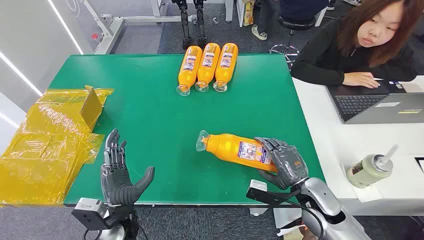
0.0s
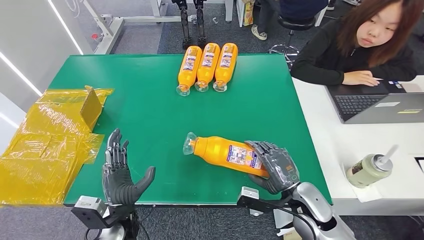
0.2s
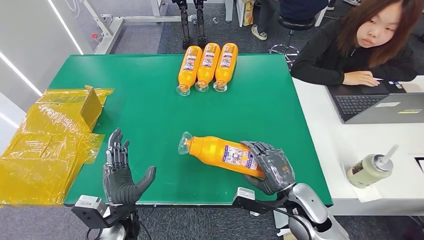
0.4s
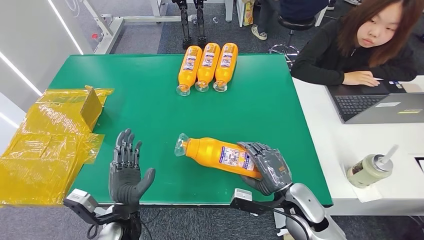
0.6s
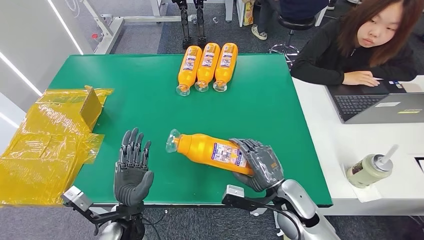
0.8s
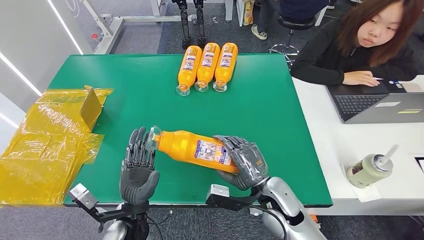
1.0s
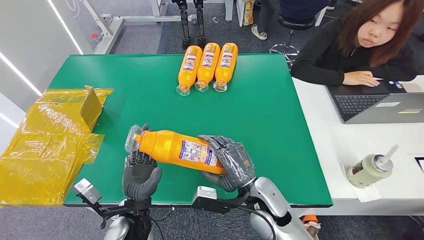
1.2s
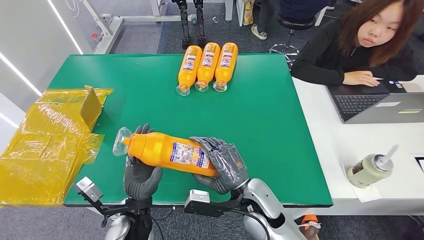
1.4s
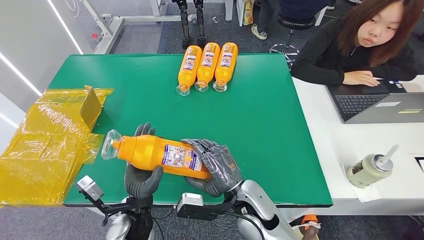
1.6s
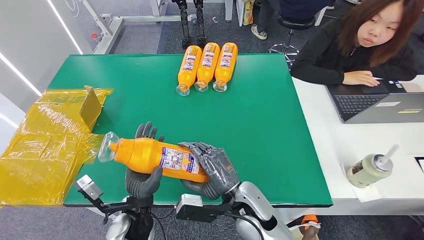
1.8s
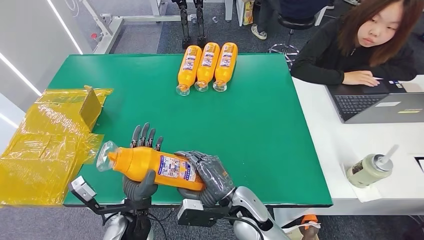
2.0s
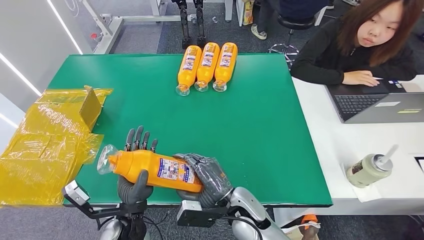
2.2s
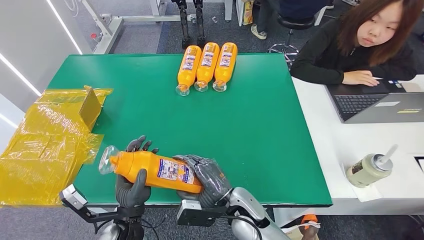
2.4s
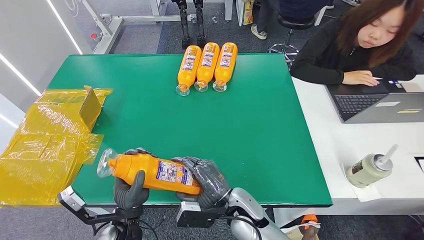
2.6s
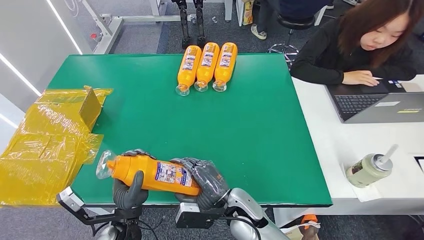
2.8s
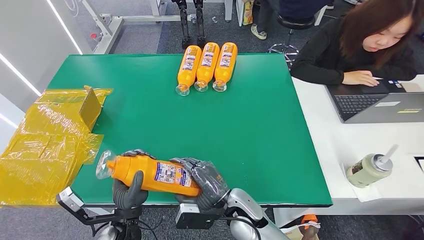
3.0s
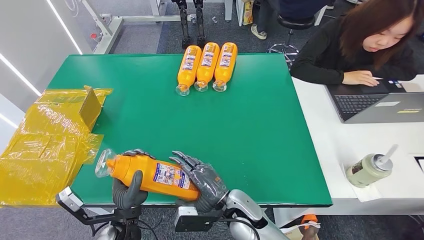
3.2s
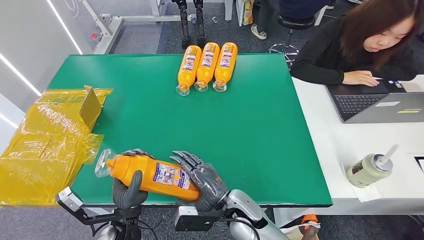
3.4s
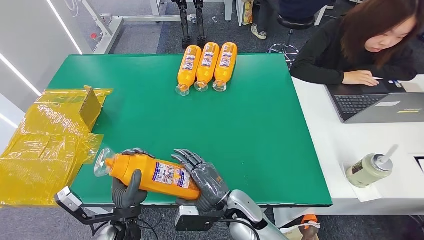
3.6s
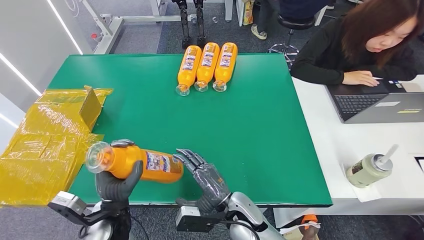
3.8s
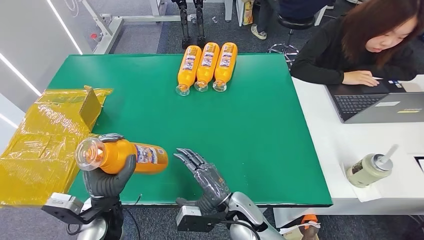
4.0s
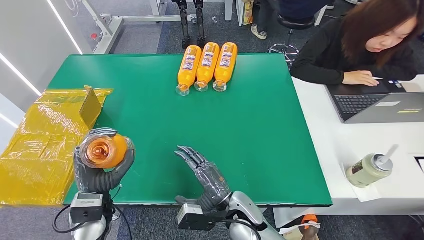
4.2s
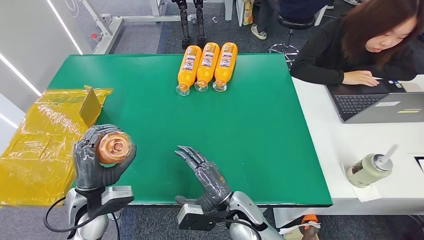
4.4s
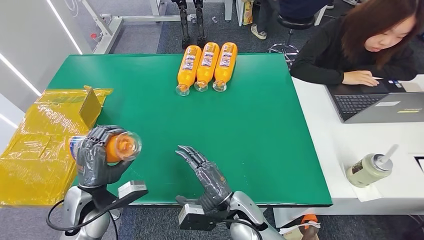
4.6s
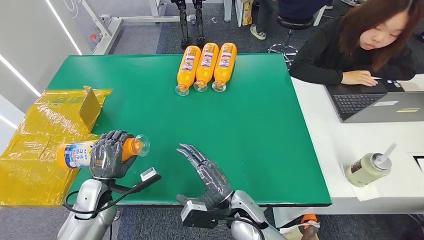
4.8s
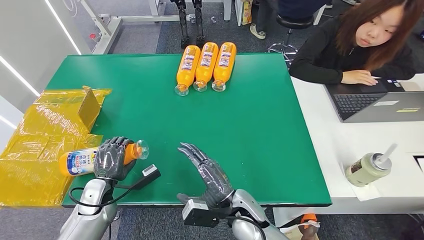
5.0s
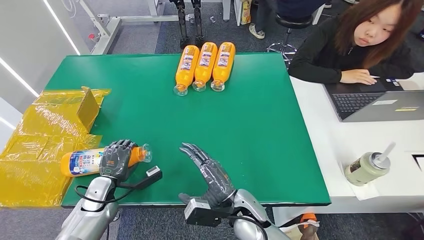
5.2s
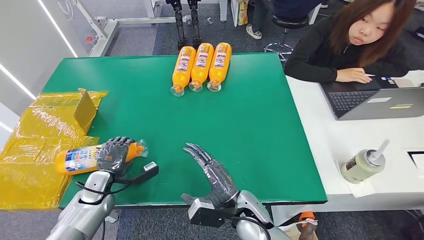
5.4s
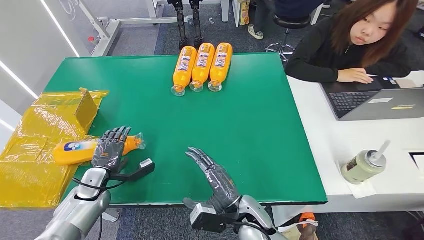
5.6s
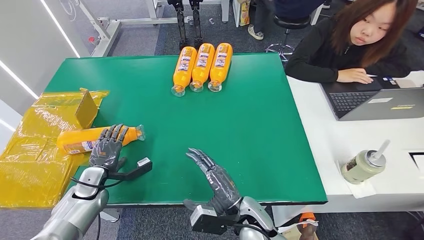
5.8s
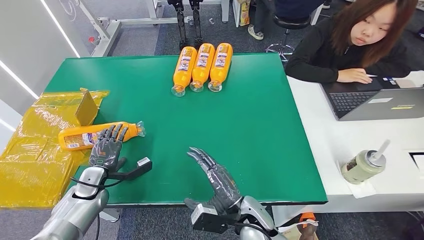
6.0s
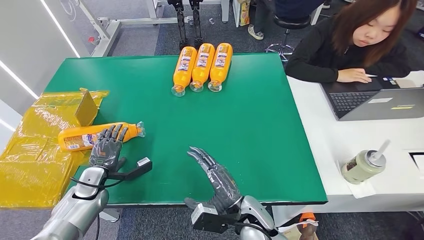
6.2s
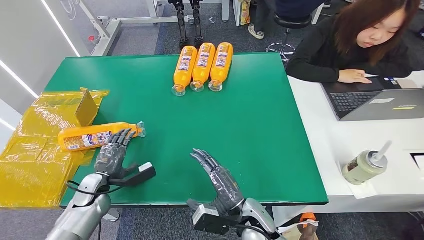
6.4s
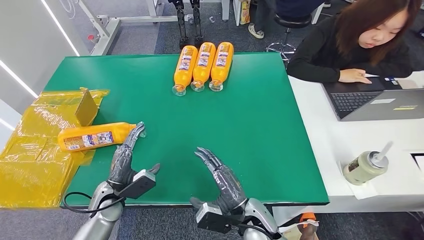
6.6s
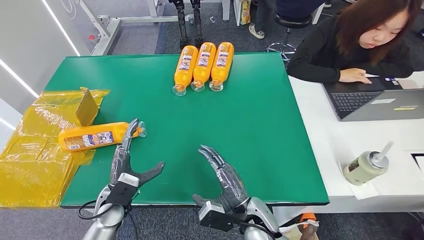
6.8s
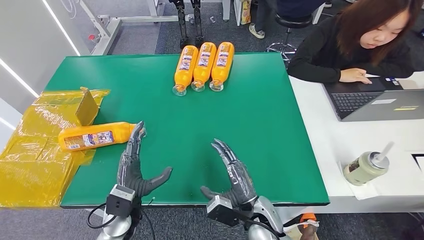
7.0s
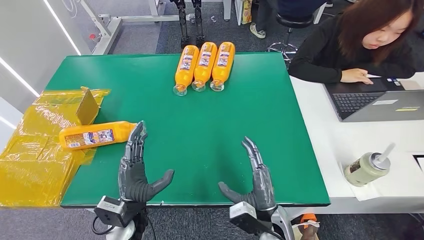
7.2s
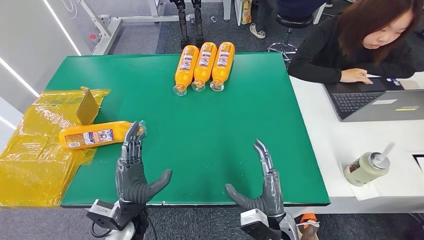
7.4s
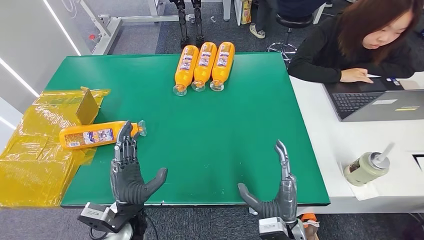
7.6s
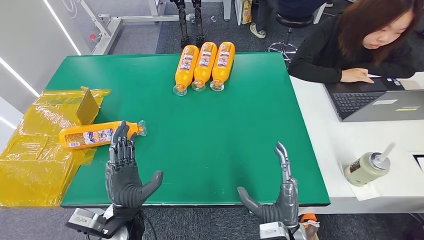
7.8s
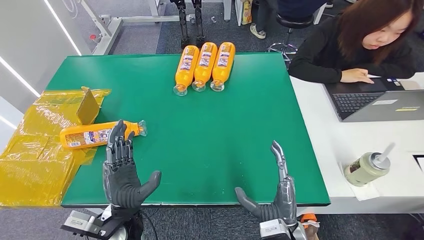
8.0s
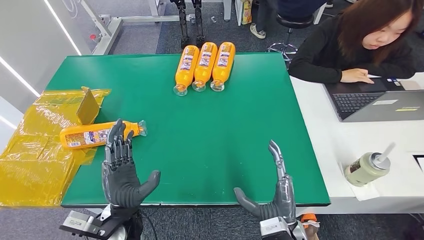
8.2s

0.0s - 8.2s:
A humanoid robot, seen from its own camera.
Step, 0.0s - 1.6s: Pick up the bottle from the table.
Step, 1.8s - 8.2s: Turn the bottle to the front side.
1.6s - 3.2s: The right hand travels downward by some 5 cm.
3.2s - 5.0s: The left hand travels to the left and forward by approximately 15 cm.
6.6s - 8.2s: The left hand moves to the right, upward and backward, about 15 cm. Meanwhile the right hand travels to the right and backward by approximately 10 cm.
